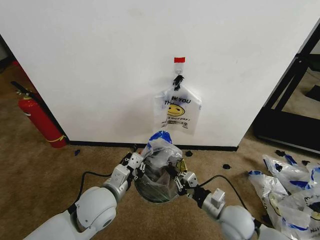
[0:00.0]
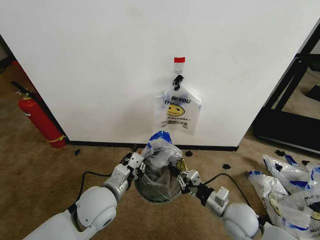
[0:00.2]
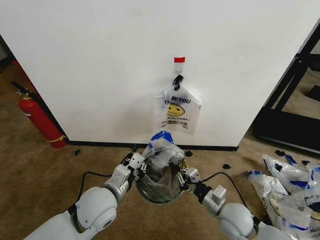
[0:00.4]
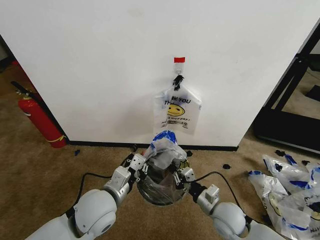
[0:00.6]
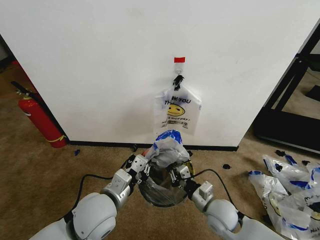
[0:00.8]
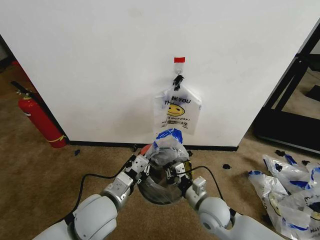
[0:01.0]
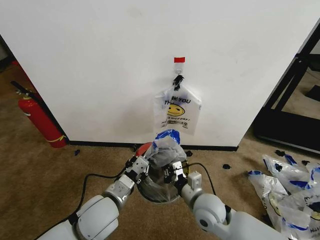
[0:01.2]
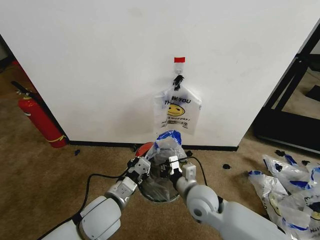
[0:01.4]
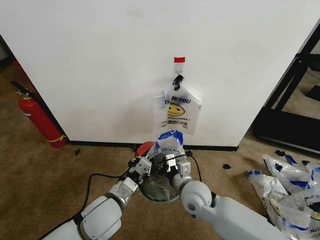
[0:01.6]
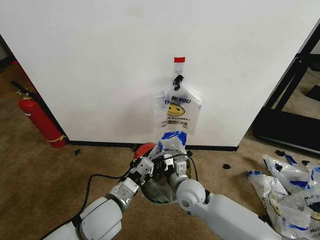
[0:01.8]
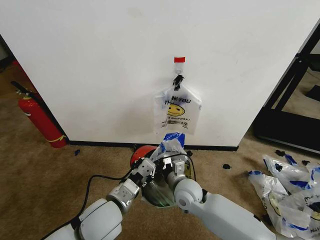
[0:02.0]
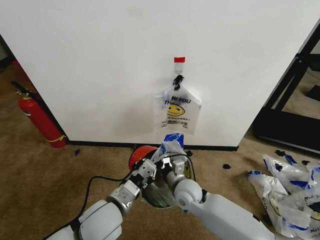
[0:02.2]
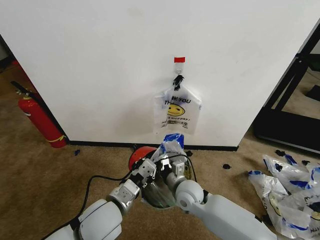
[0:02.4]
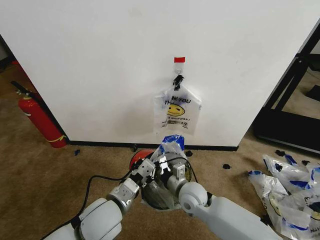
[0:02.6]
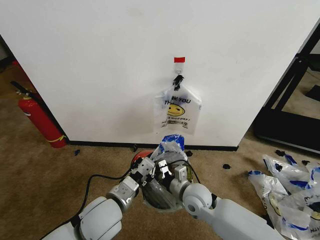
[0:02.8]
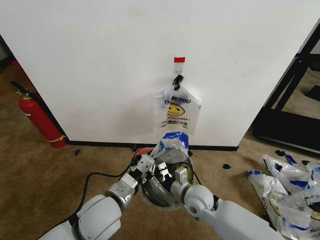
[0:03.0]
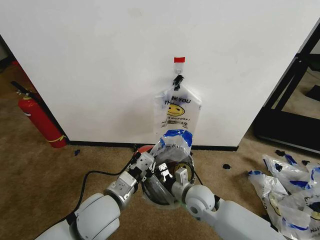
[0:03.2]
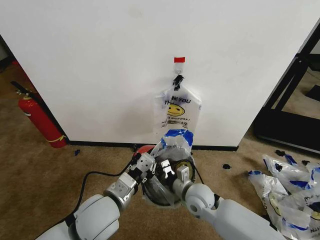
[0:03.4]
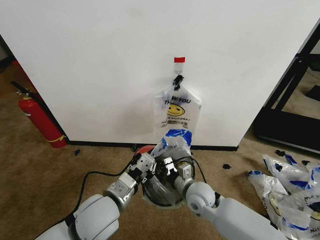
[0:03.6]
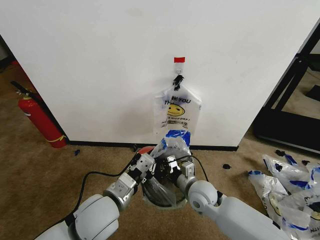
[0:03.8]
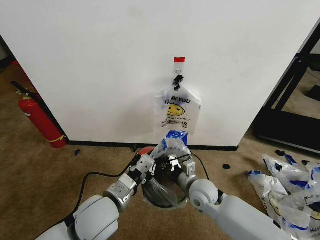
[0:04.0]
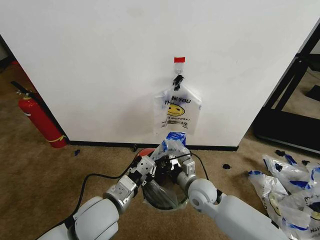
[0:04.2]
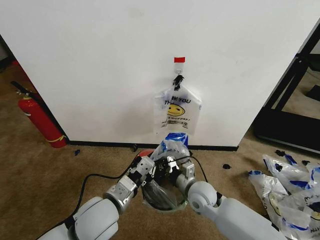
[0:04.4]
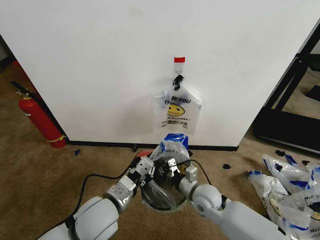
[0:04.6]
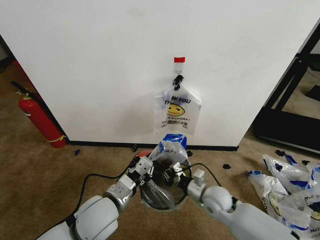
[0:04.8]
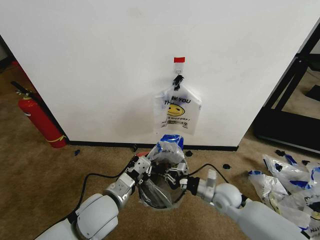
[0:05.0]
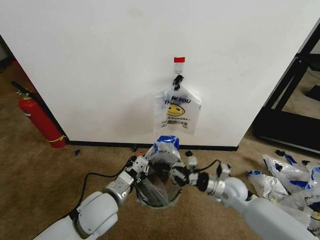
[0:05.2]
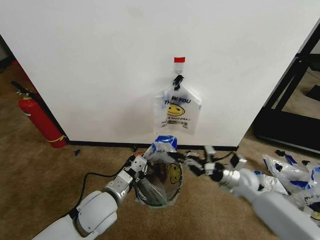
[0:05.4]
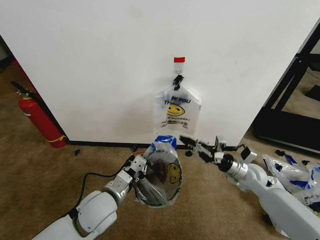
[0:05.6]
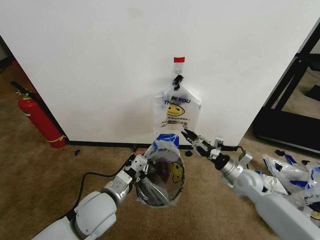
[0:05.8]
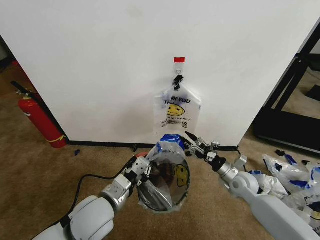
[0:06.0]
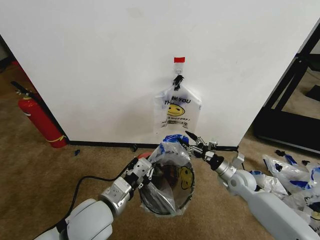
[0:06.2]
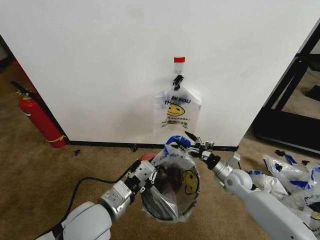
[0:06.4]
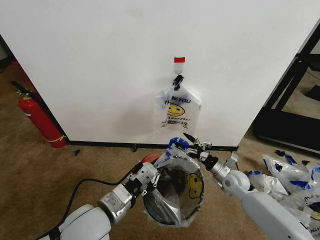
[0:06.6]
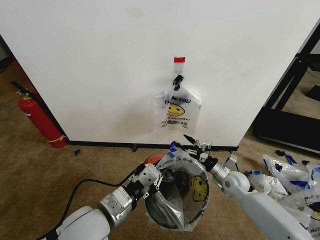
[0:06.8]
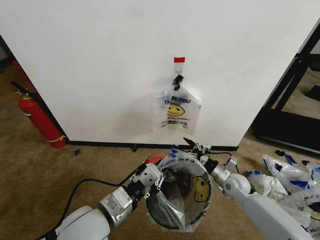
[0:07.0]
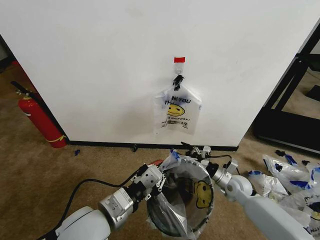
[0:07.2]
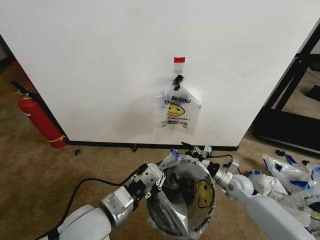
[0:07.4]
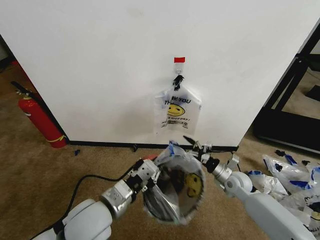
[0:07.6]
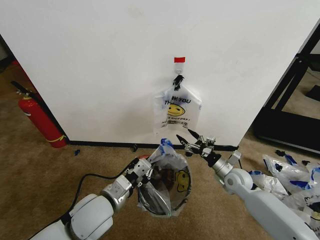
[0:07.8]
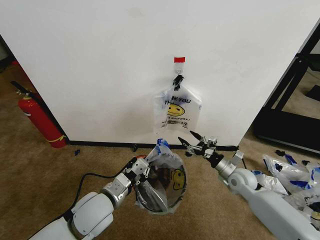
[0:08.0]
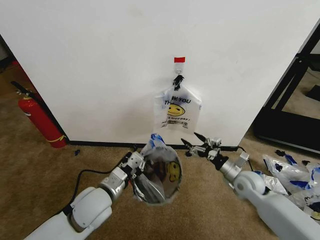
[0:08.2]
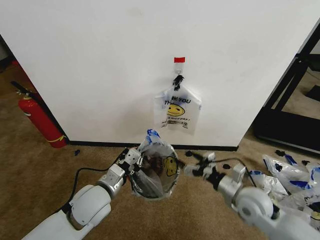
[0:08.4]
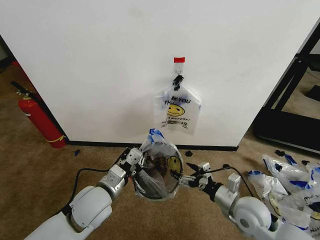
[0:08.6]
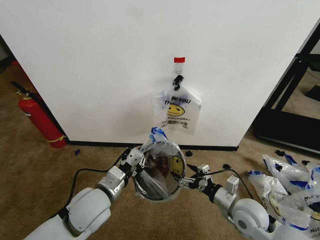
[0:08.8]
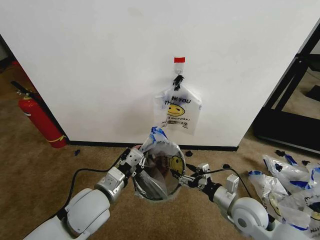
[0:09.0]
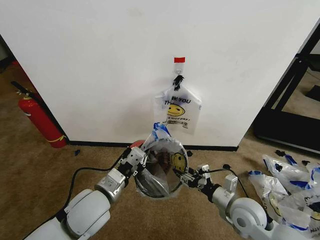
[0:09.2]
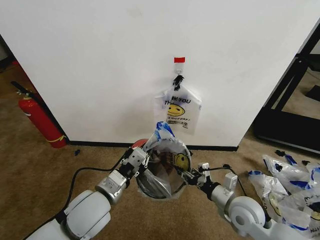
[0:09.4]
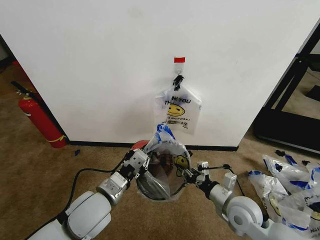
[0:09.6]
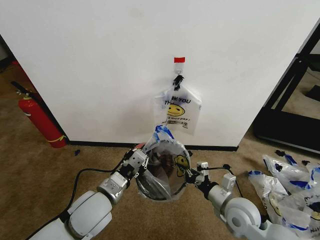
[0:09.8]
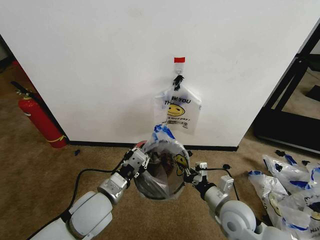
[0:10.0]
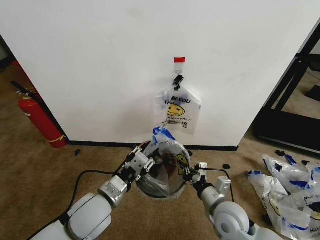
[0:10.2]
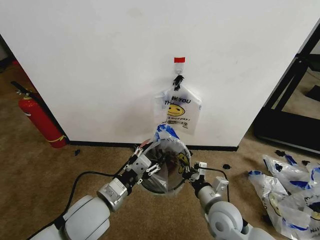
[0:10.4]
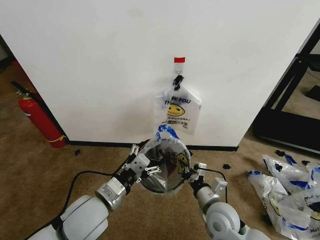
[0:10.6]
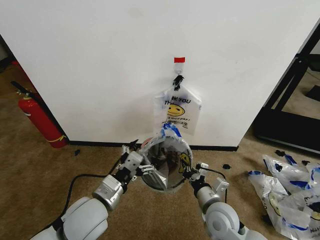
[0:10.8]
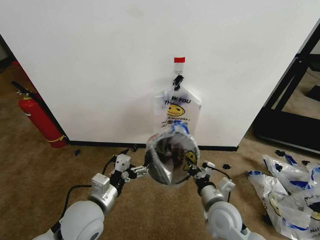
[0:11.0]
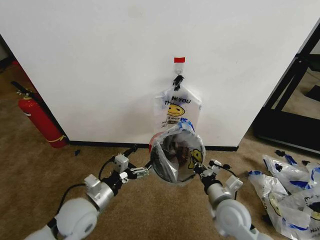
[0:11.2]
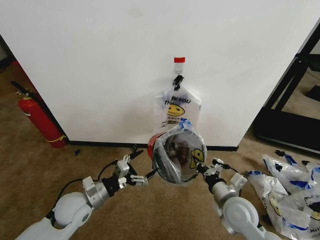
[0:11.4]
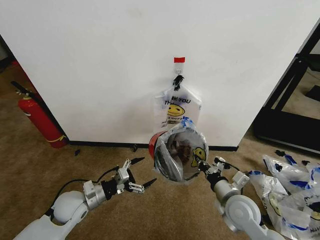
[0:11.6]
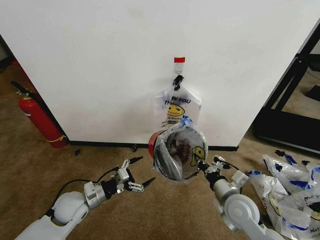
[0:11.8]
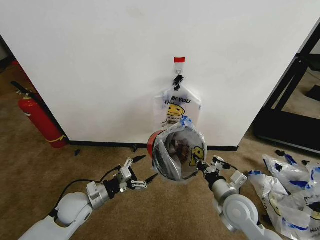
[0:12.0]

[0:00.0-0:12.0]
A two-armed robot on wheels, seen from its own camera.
Task of the whole recording: Pick up the garbage bag from the wall and place it over the trash bin.
0:00.0 to 0:01.6: The right gripper shifts about 15 cm to the left and forward.
0:01.6 to 0:03.0: The grippers make only small movements.
0:03.0 to 0:04.4: The grippers stay close to where they were, moving slightly.
0:04.4 to 0:06.0: The right gripper heads to the right, covering about 15 cm, and opens its fingers.
0:06.0 to 0:07.6: The right gripper opens.
0:07.6 to 0:09.0: The right gripper travels backward and upward by approximately 15 cm.
0:09.0 to 0:10.4: The left gripper opens its fingers; the right gripper shifts some 5 cm to the left, and closes up.
0:10.4 to 0:12.0: The right gripper ends up approximately 5 cm from where it was; the left gripper goes approximately 15 cm downward, to the left and forward.

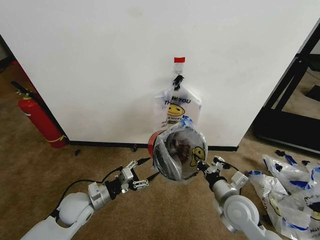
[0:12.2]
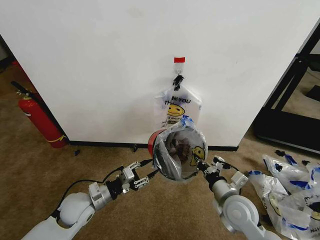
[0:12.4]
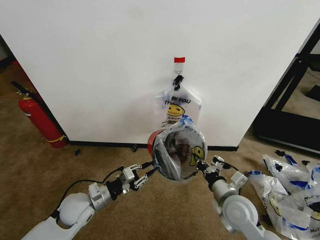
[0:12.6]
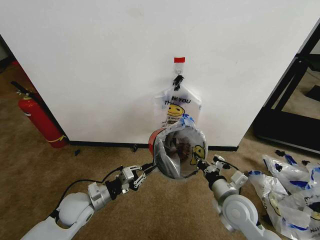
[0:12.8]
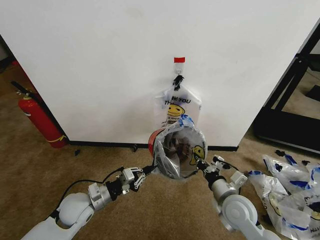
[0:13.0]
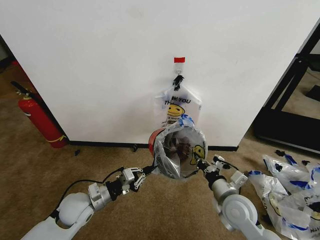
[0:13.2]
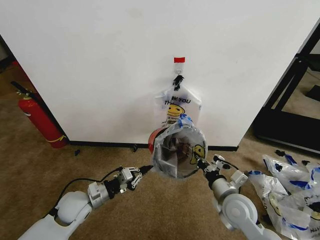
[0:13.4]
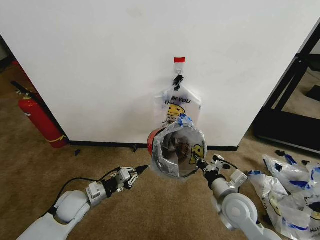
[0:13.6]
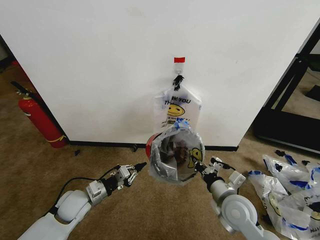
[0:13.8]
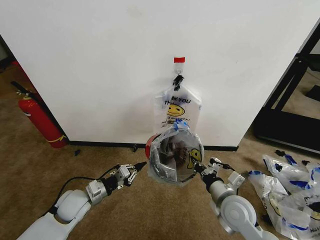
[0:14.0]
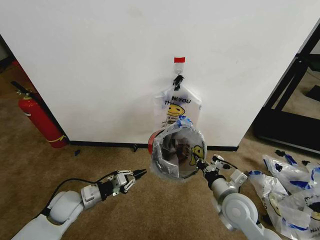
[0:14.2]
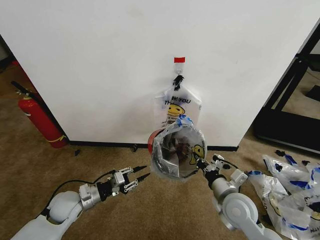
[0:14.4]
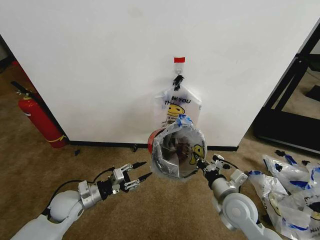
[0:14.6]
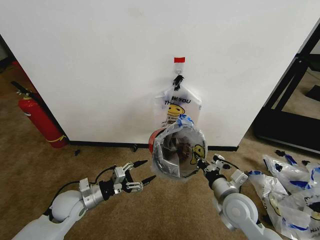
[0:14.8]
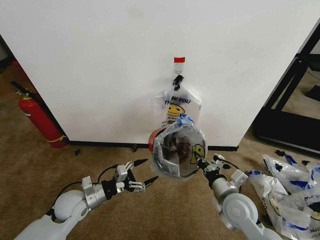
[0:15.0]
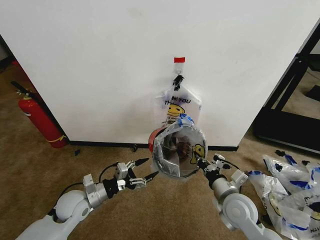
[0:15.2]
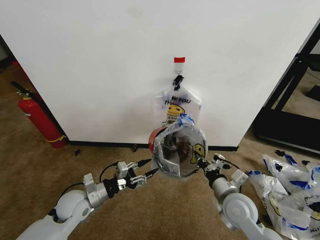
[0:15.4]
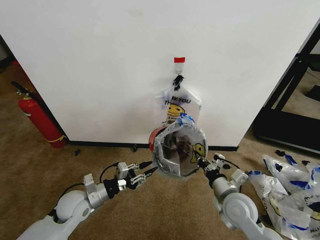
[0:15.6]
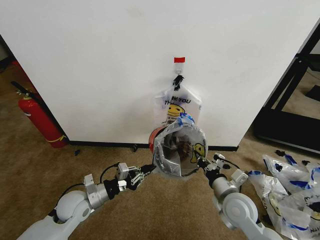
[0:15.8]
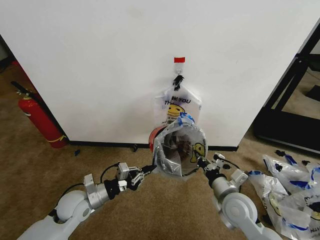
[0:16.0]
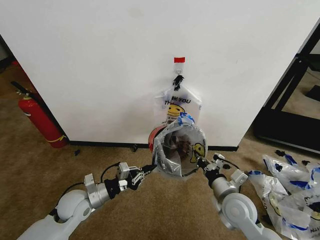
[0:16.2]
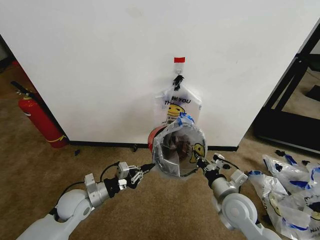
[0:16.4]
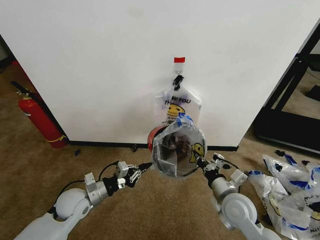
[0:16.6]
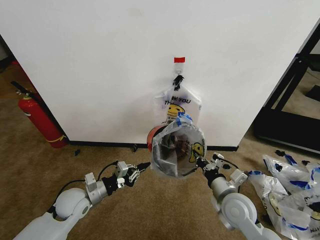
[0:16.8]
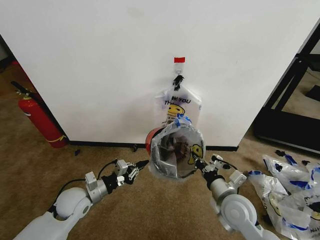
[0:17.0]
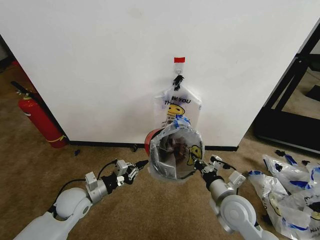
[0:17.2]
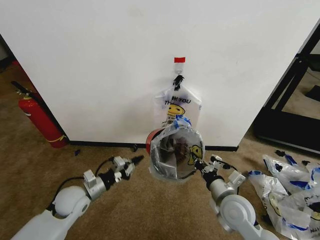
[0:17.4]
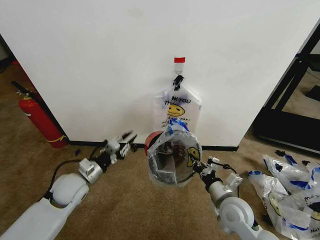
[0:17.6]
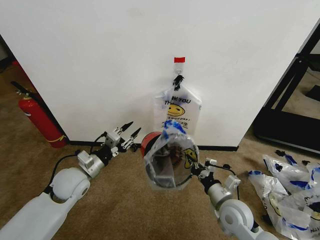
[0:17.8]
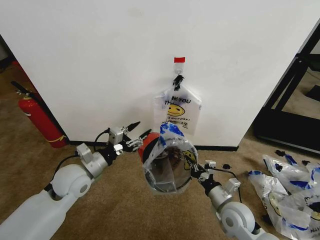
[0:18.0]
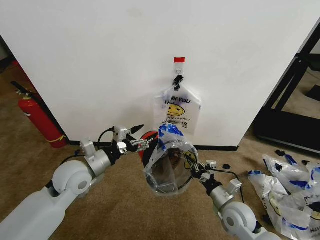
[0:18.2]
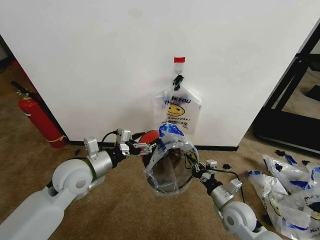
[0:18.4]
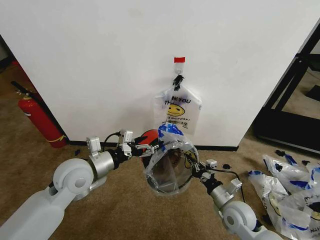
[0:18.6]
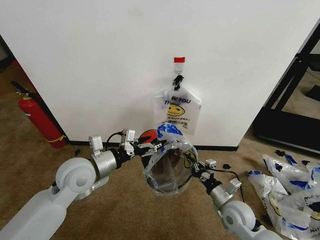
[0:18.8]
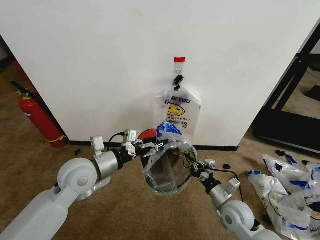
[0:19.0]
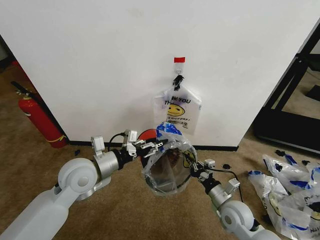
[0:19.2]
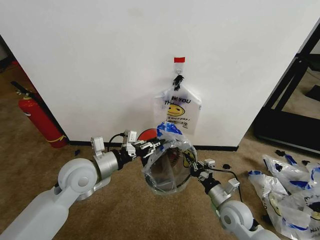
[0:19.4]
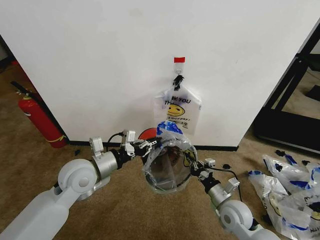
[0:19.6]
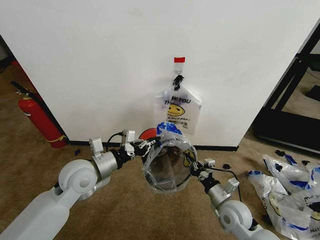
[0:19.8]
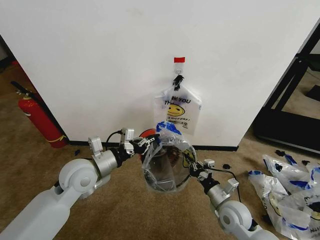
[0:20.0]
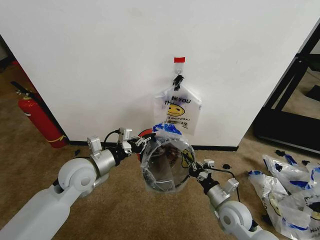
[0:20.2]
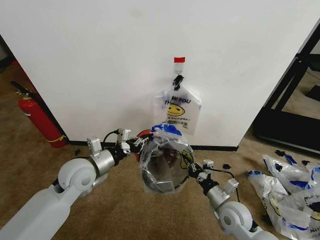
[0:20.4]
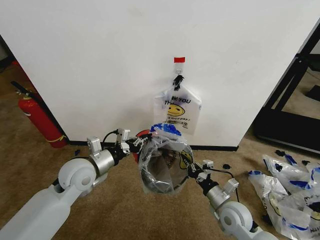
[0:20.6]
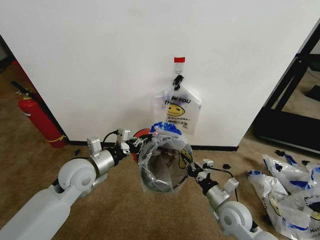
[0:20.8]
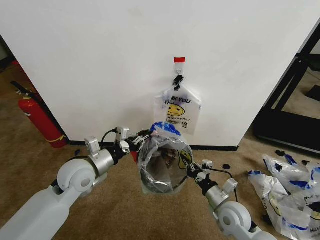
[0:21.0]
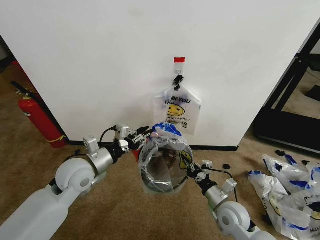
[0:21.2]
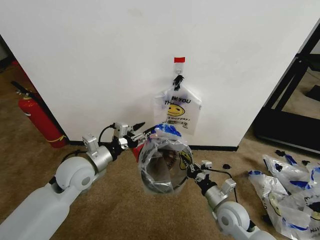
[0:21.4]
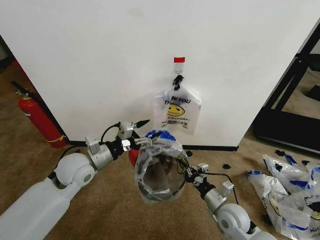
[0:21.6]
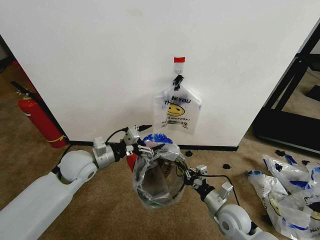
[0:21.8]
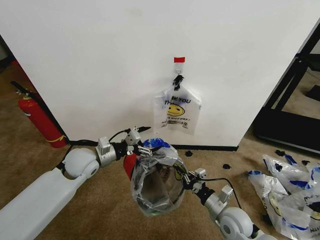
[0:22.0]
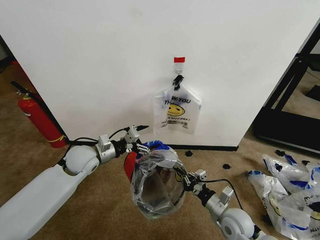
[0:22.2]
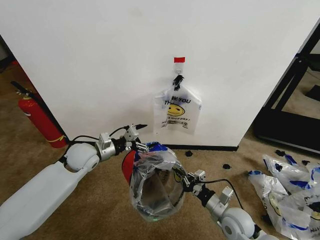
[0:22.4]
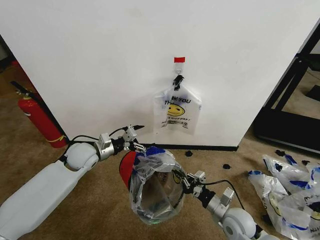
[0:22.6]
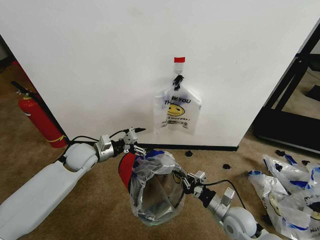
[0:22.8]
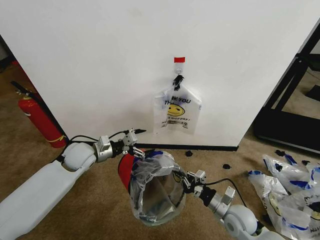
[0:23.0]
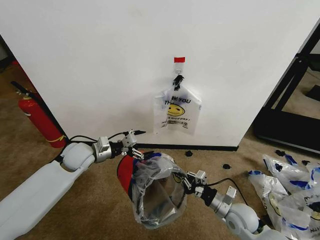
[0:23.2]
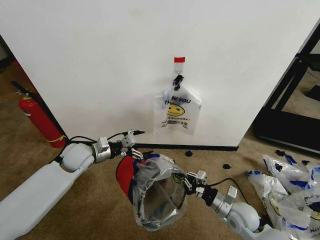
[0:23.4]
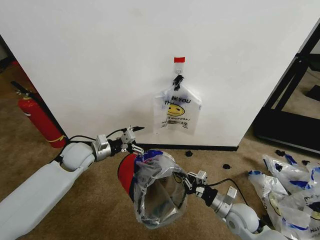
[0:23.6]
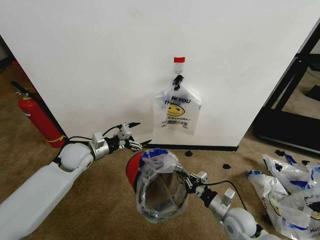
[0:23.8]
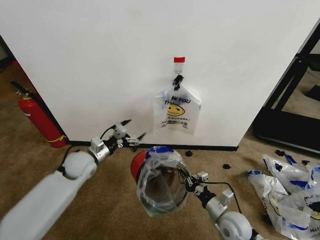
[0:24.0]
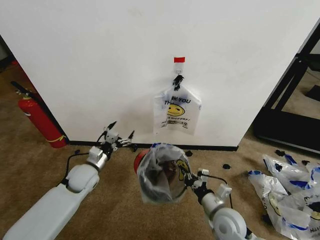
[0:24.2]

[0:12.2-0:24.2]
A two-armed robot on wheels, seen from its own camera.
Task of the whole recording: Pick up the garbage bag from the wall and place it over the trash bin.
0:12.2 to 0:13.8: The left gripper closes up.
0:13.8 to 0:15.2: The left gripper opens its fingers.
0:15.2 to 0:16.6: The left gripper closes.
0:16.6 to 0:18.2: The right gripper shifts roughly 5 cm downward. Meanwhile the left gripper moves upward, about 10 cm, and opens its fingers.
0:18.2 to 0:19.8: The left gripper closes its fingers.
0:19.8 to 0:21.2: The left gripper opens its fingers.
0:21.2 to 0:22.6: The left gripper shifts about 10 cm forward, and opens up.
0:22.6 to 0:24.2: The left gripper goes some 5 cm downward.
